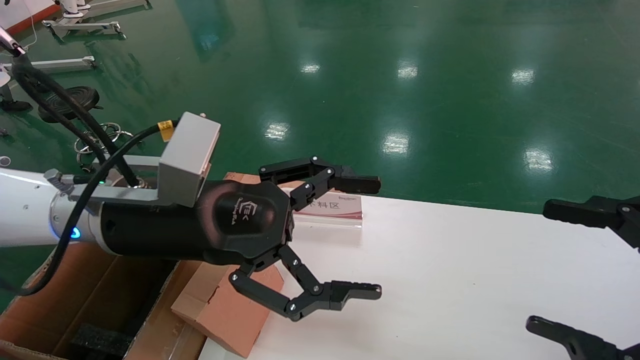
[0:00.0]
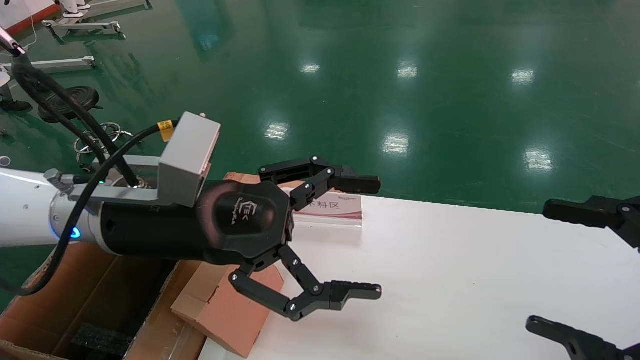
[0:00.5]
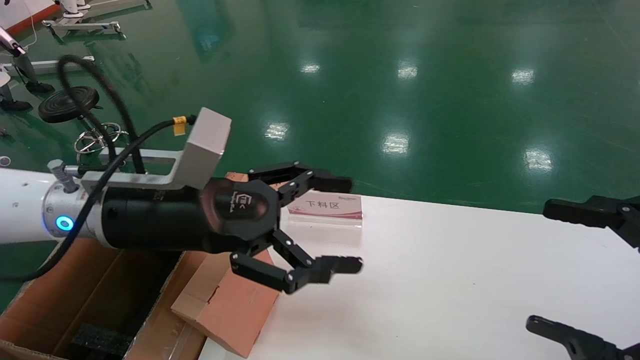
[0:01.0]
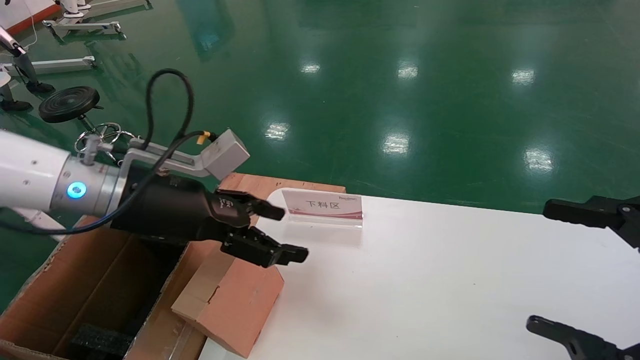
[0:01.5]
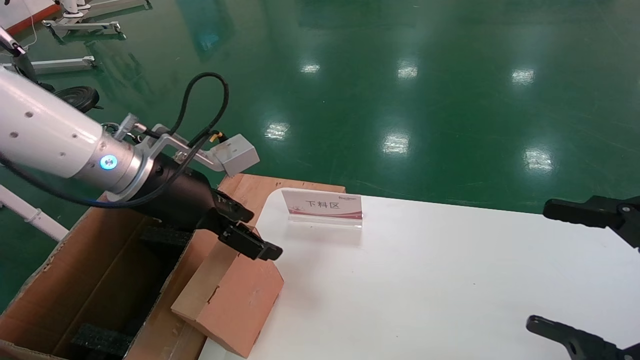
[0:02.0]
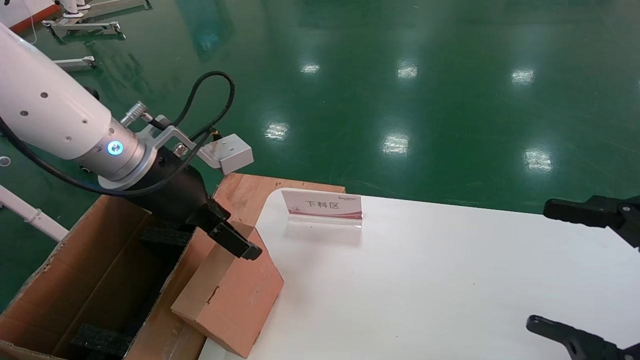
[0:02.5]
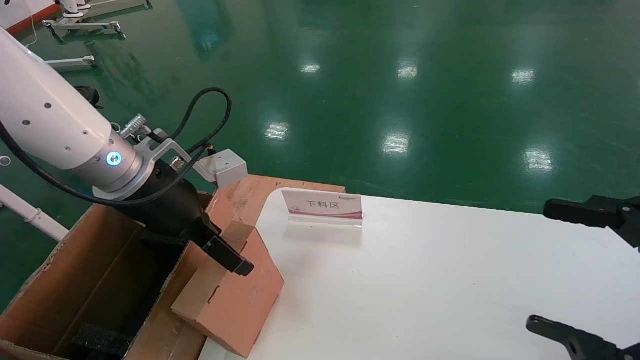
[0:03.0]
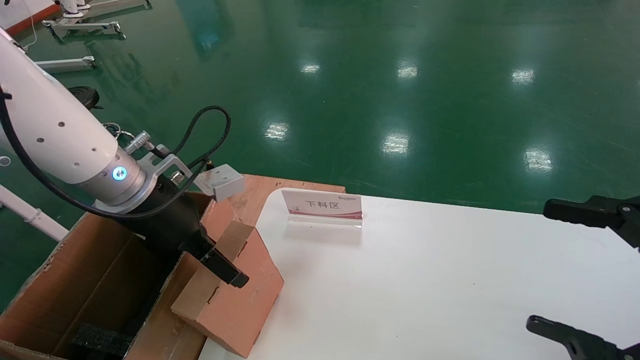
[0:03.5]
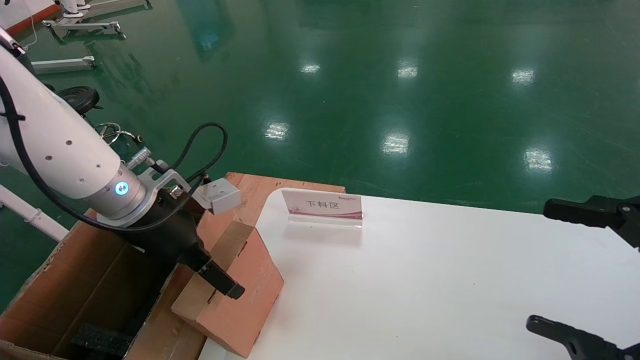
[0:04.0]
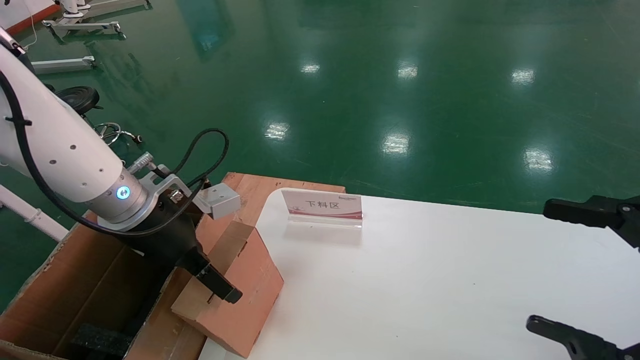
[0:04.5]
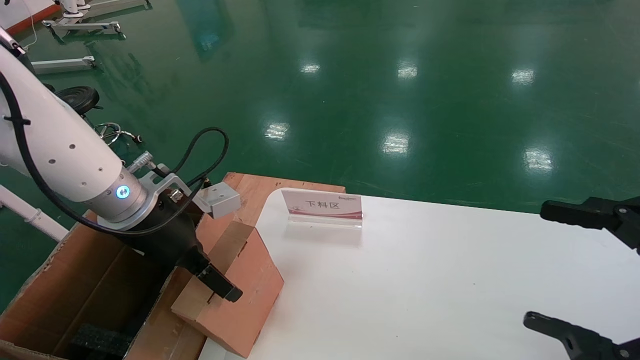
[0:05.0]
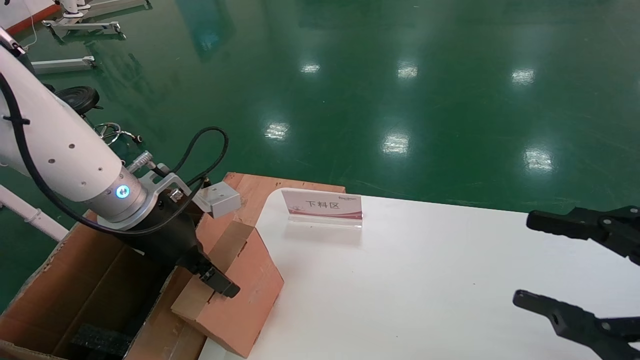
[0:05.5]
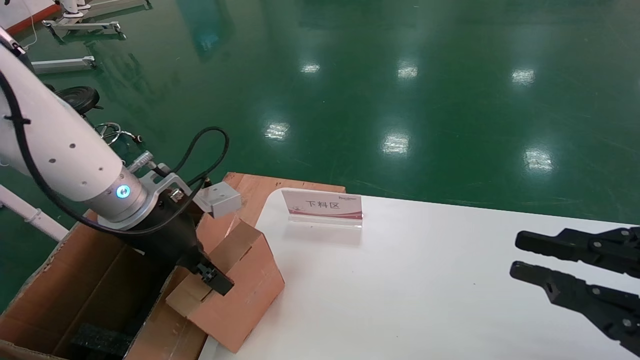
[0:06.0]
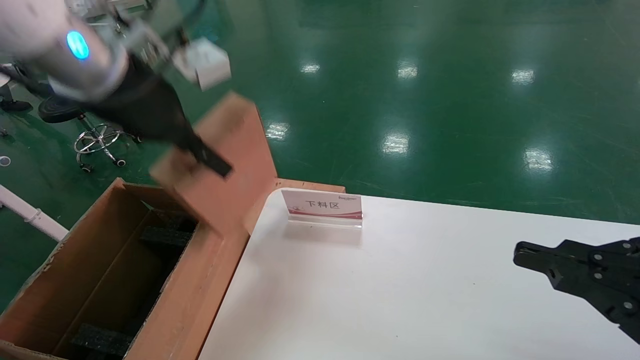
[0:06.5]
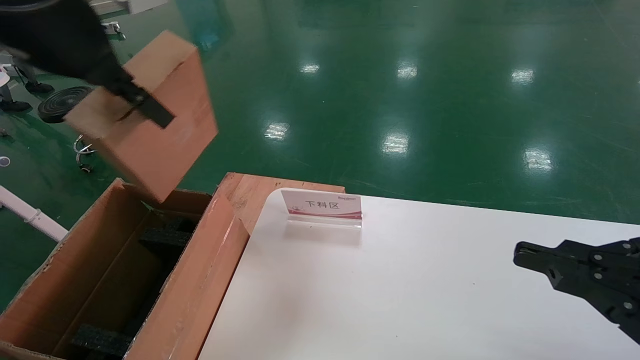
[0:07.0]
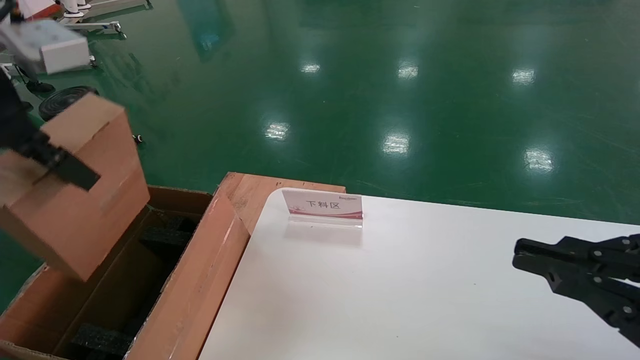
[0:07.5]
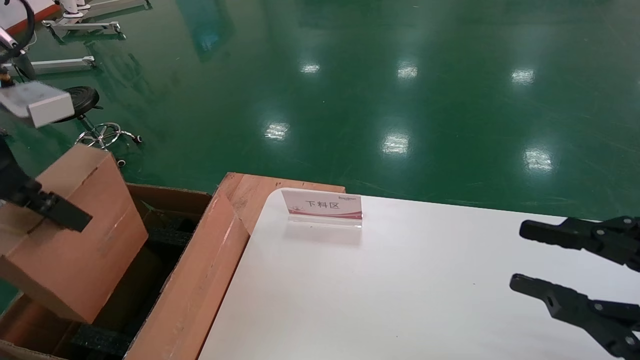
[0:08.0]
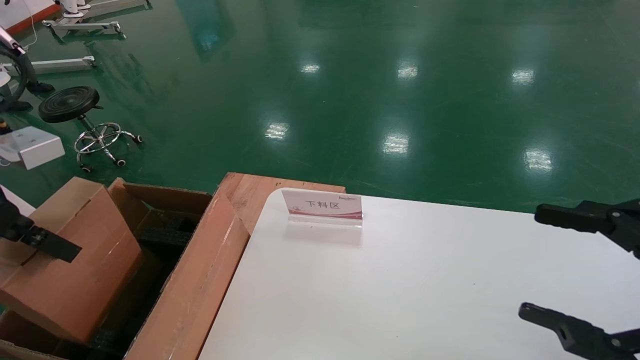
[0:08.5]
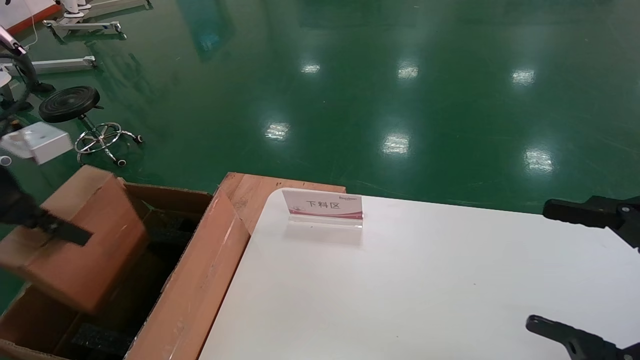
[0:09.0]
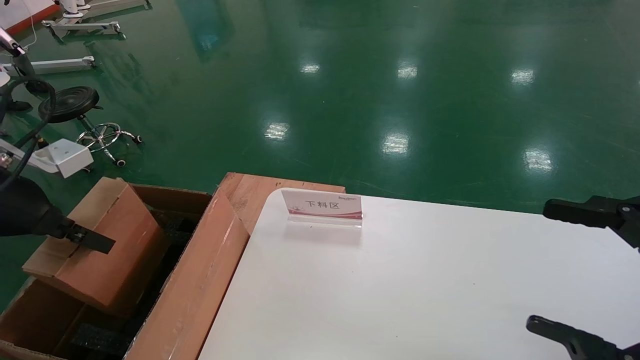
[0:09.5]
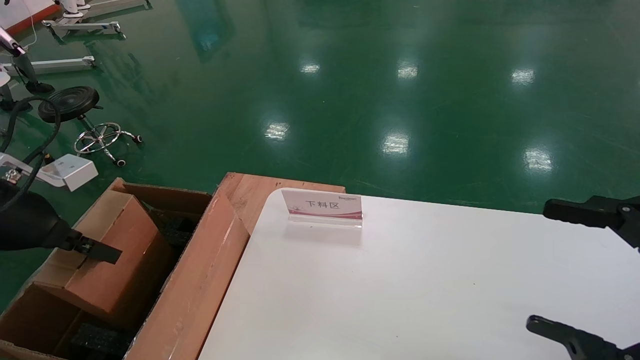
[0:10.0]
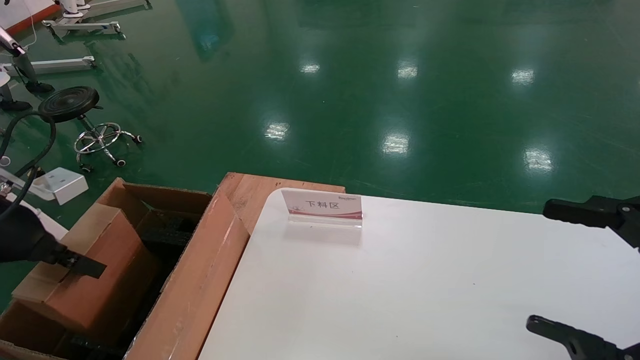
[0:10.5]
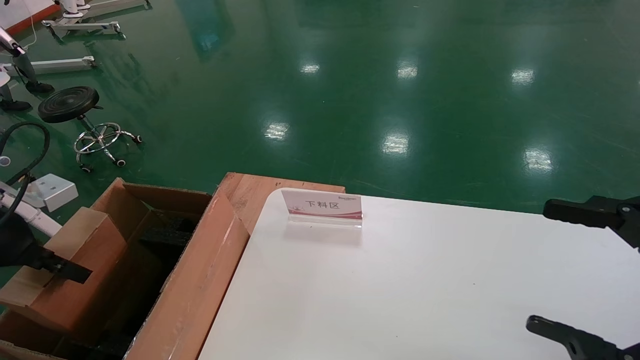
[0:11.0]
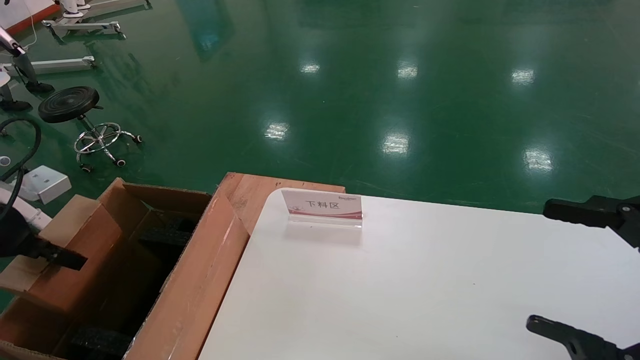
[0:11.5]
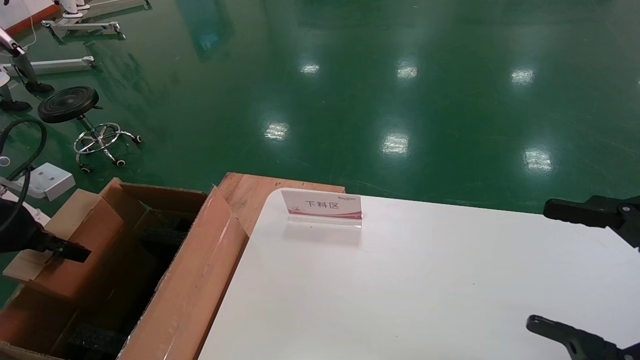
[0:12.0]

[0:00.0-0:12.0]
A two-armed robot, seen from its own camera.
Task of the whole recording: pick up the small cardboard box and load it into the large cardboard box.
Step, 0:01.5 to 0:05.5: Pick up the mouse and power cord box.
0:00.0 to 0:02.0: The left gripper heads forward, covering roughly 5 cm.
0:04.0 to 0:06.0: The left gripper closes up, while the right gripper closes.
0:06.0 to 0:08.0: The left gripper is displaced backward, upward and to the left by some 20 cm.
0:08.0 to 0:10.0: The left gripper shifts about 15 cm downward and to the left; the right gripper opens up.
0:10.0 to 0:12.0: The left gripper shifts some 5 cm to the left.

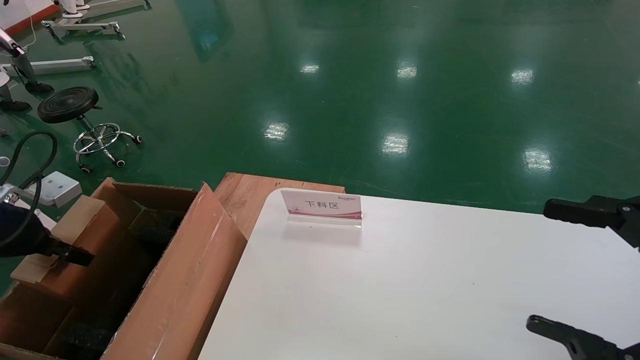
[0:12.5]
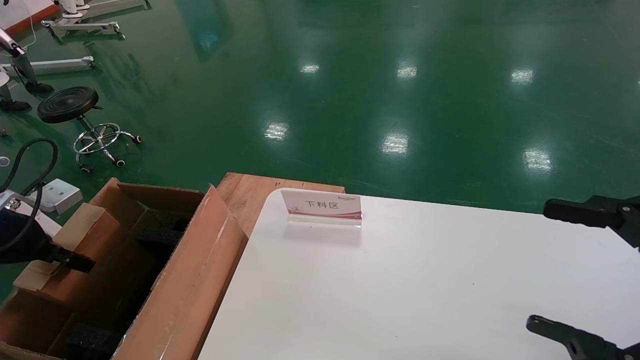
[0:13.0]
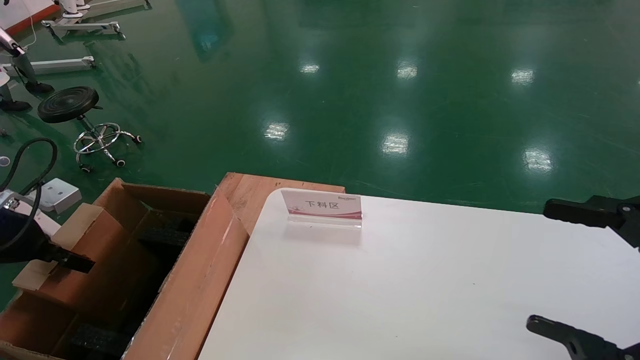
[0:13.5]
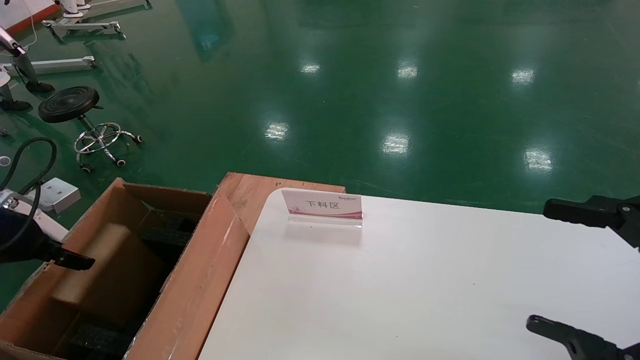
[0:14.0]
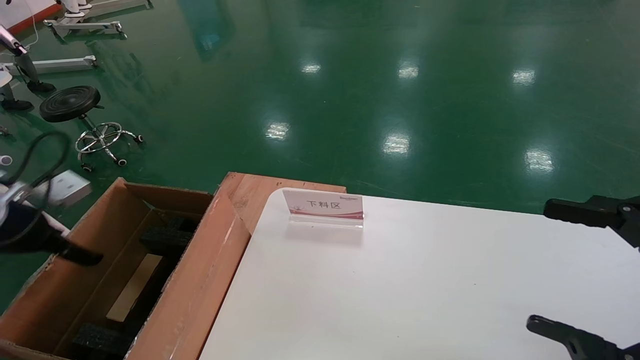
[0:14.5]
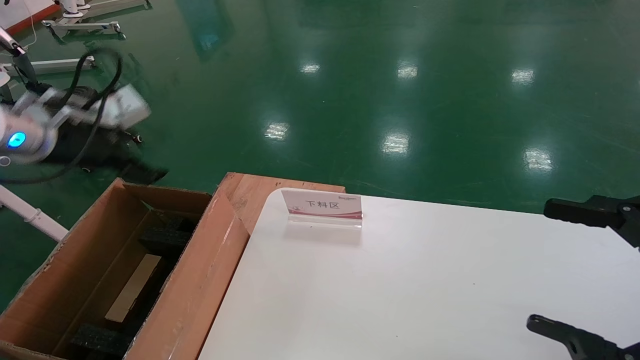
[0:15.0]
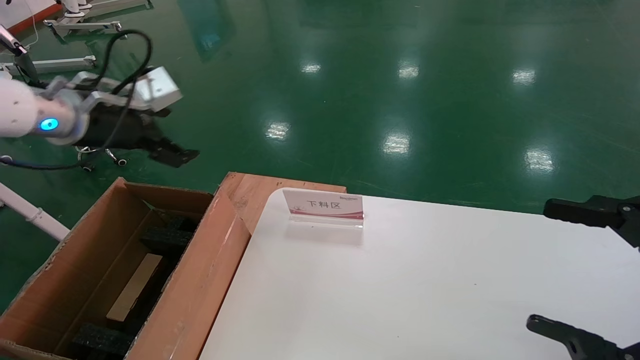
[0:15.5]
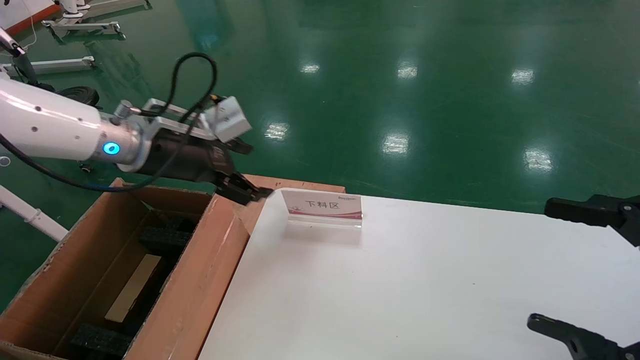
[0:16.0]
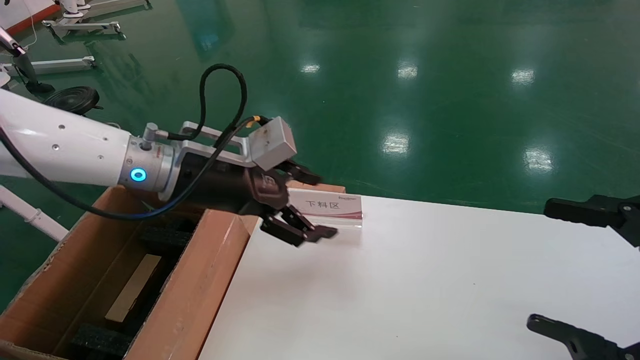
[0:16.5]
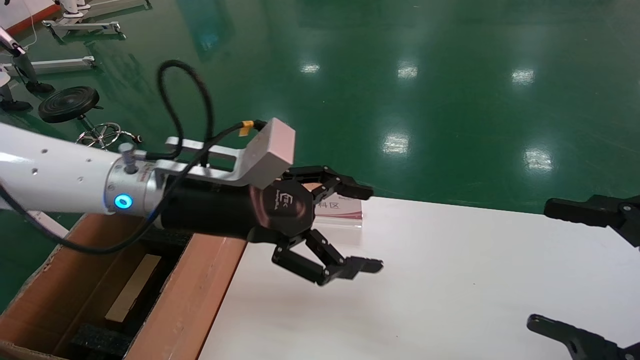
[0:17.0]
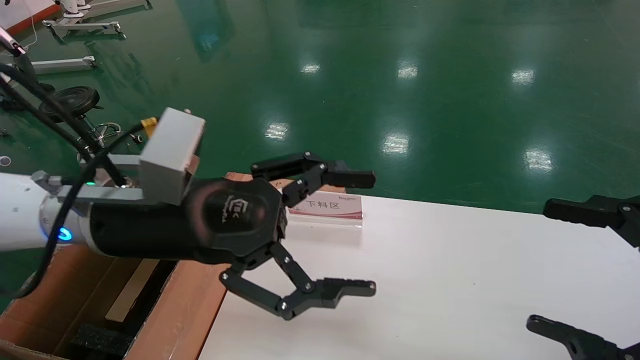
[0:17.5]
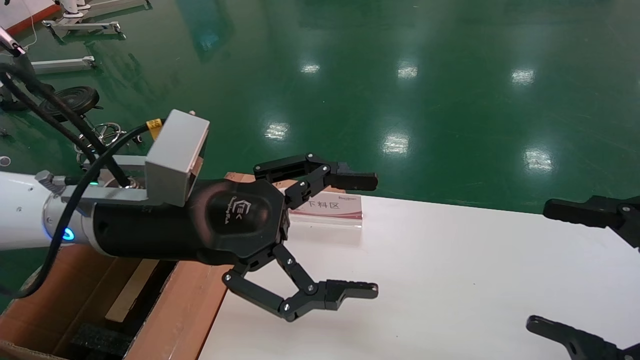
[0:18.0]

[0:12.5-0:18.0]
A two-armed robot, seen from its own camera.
Task of the whole recording: pick up the small cardboard box and load it into the large cardboard box.
0:12.5 to 0:14.5: The left gripper opens up.
0:14.5 to 0:16.0: The left gripper shifts some 20 cm to the right.
0:16.0 to 0:18.0: The left gripper shifts about 15 cm backward and to the right.

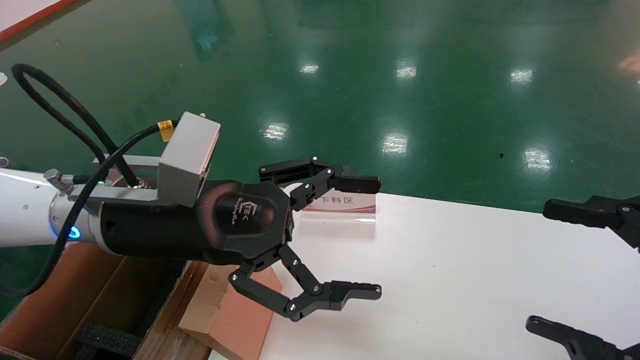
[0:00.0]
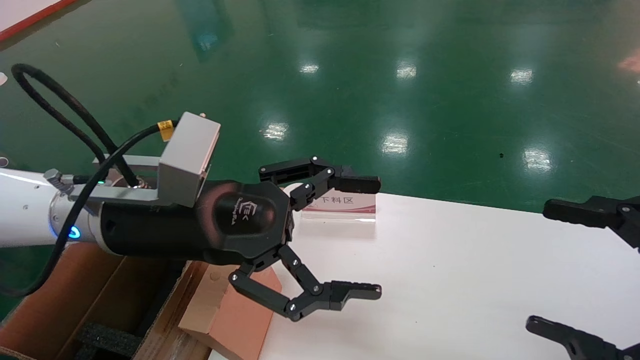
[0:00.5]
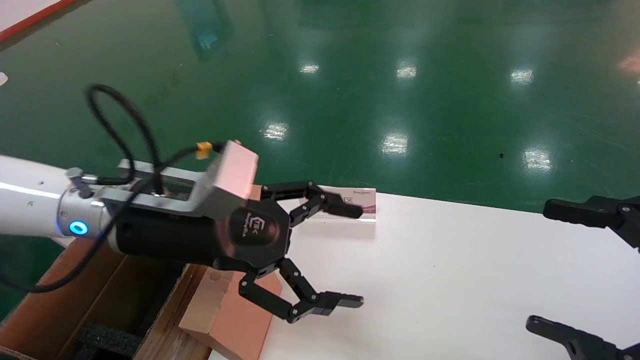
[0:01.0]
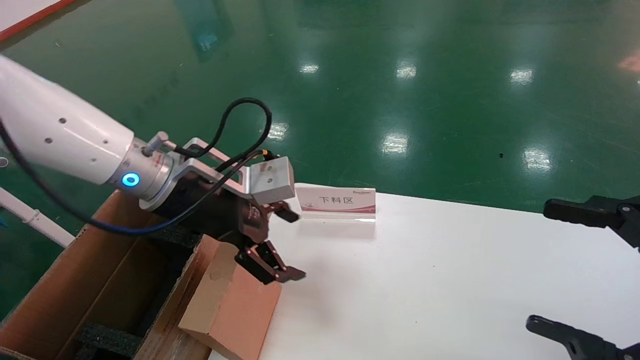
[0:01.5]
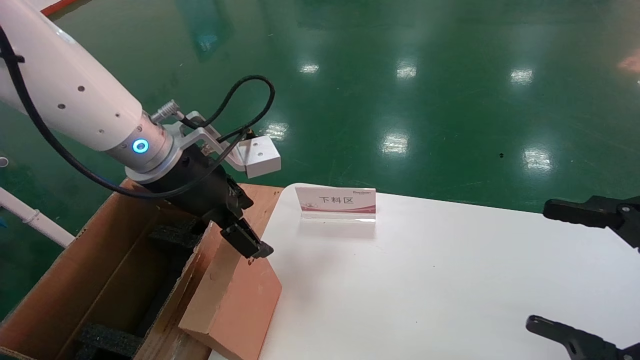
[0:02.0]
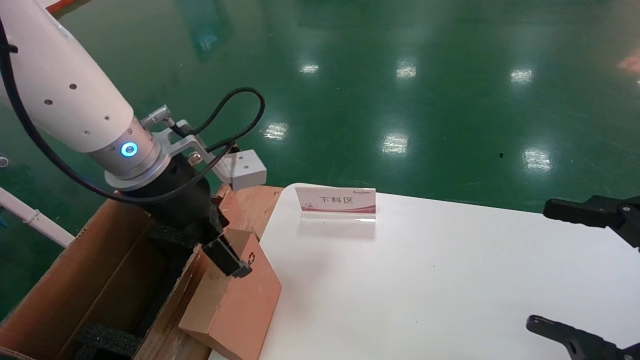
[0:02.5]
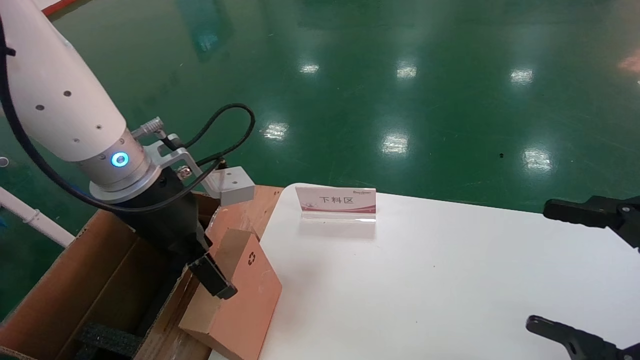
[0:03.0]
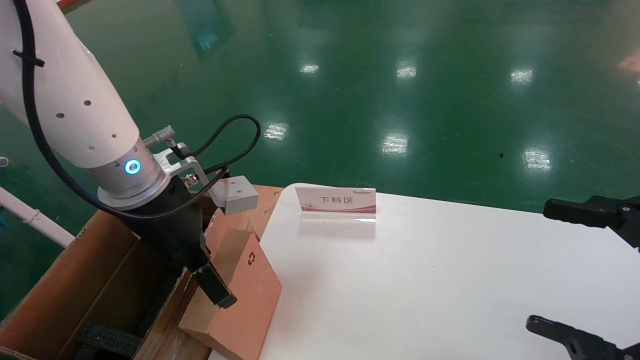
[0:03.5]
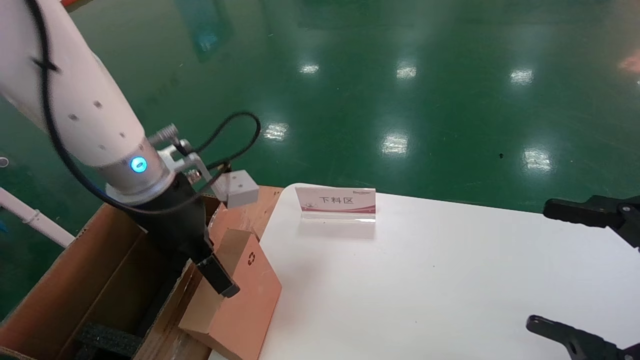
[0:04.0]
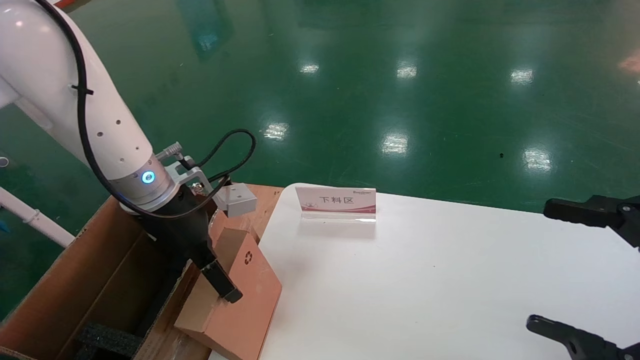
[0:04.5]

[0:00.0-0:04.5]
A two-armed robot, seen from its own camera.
Task of the whole recording: pick up the small cardboard box and load it into the large cardboard box.
0:00.0 to 0:02.0: The left gripper shifts some 5 cm forward.
0:02.0 to 0:04.5: The left gripper ends up roughly 5 cm from where it was.
